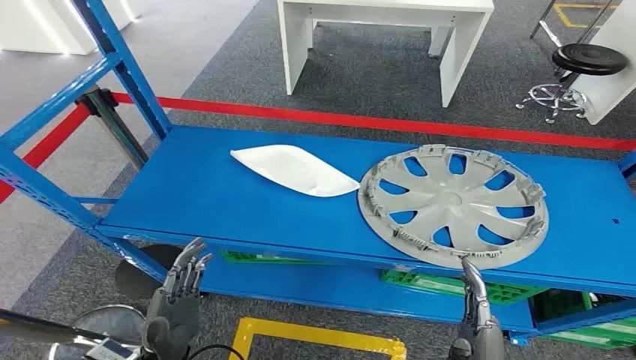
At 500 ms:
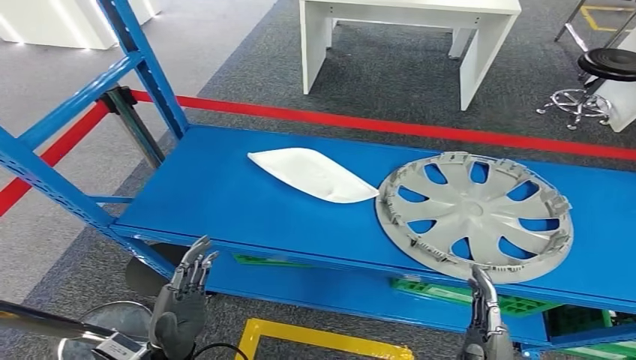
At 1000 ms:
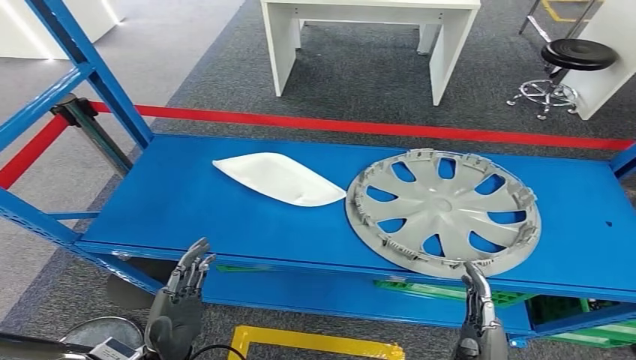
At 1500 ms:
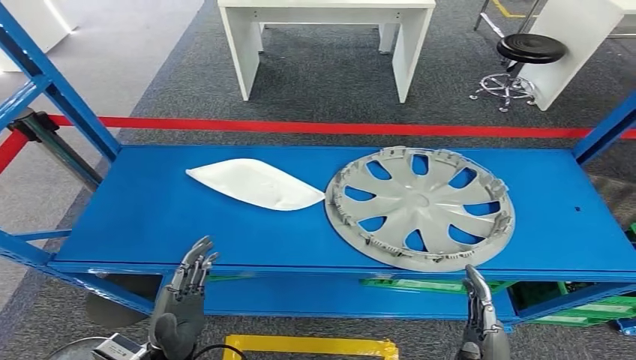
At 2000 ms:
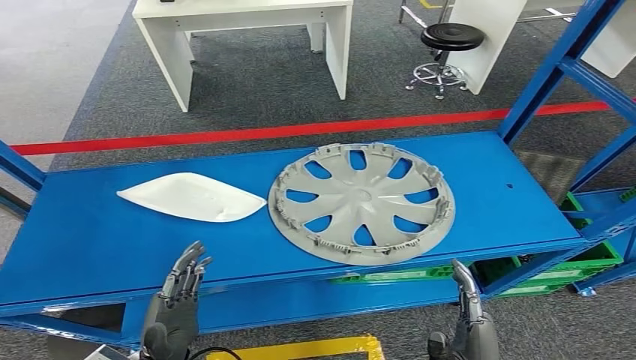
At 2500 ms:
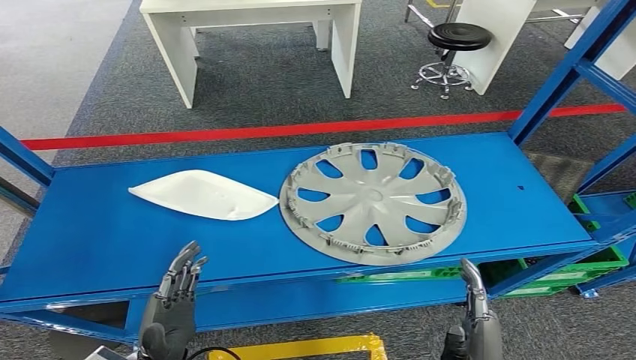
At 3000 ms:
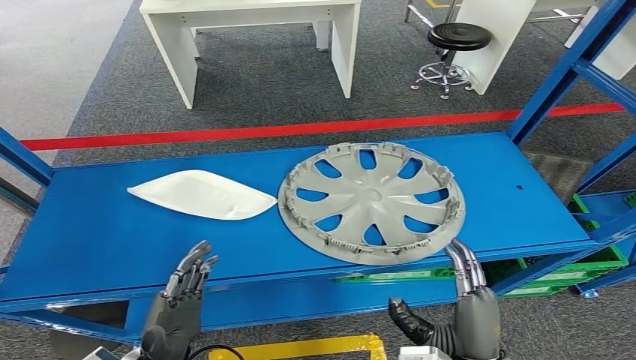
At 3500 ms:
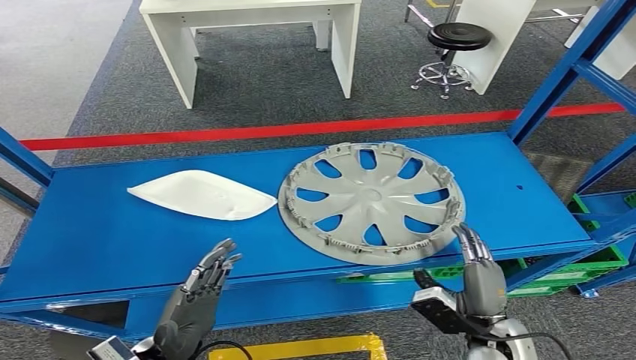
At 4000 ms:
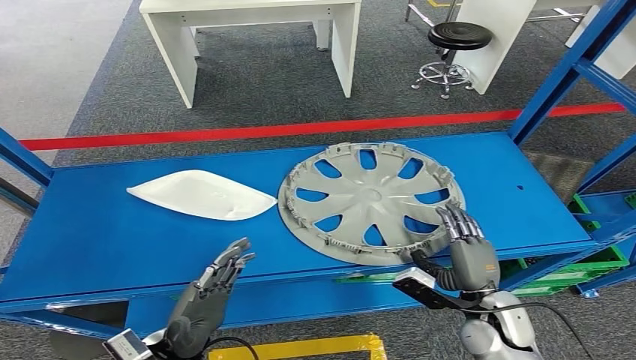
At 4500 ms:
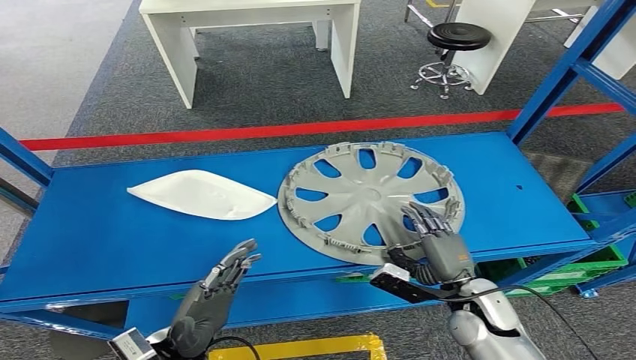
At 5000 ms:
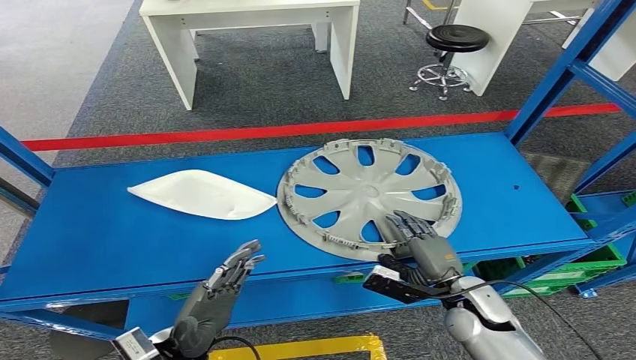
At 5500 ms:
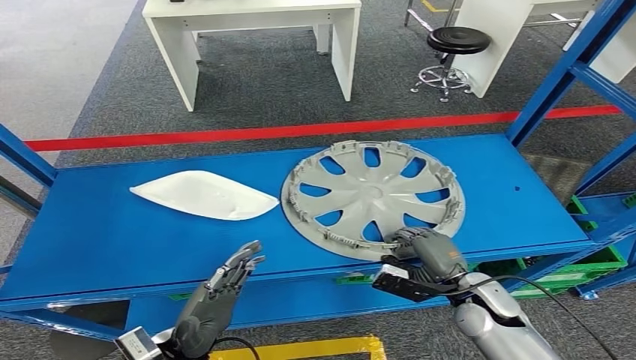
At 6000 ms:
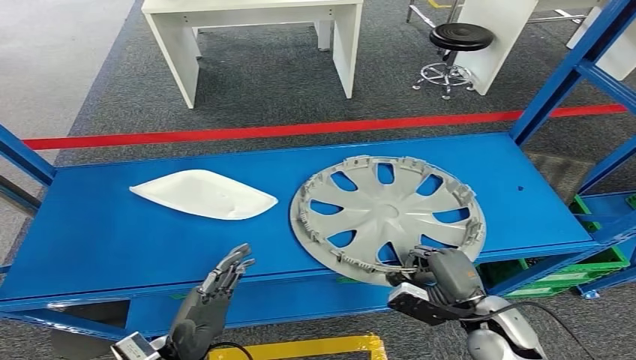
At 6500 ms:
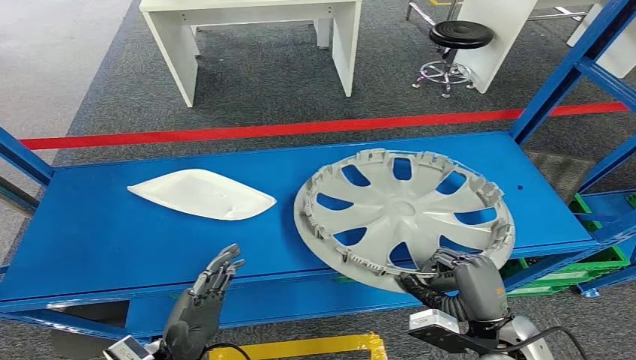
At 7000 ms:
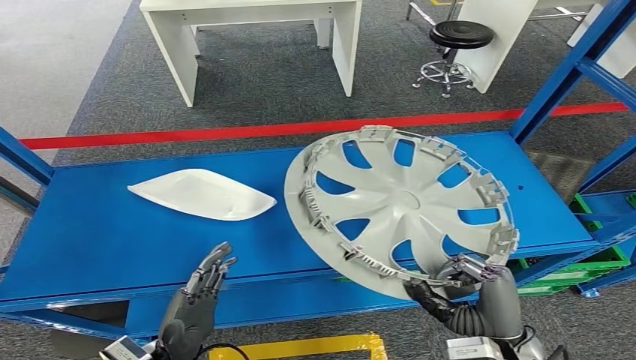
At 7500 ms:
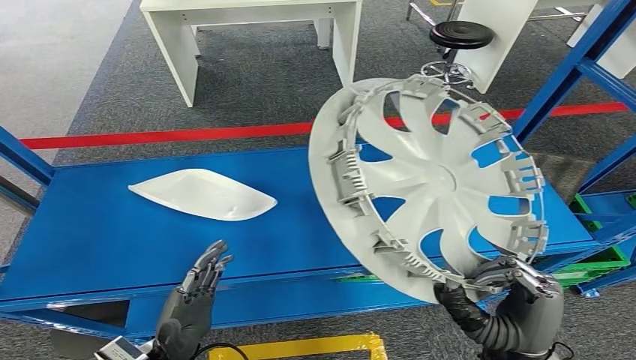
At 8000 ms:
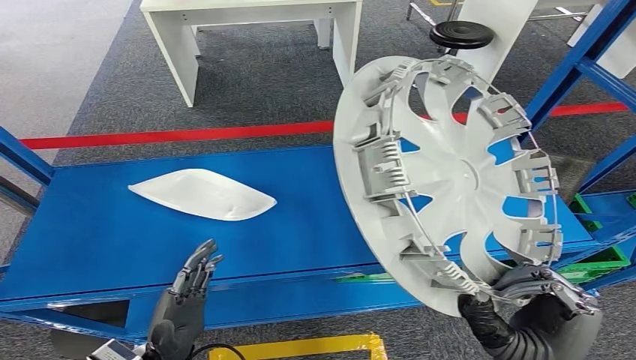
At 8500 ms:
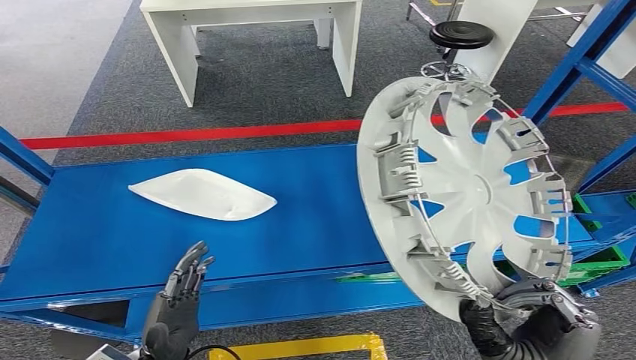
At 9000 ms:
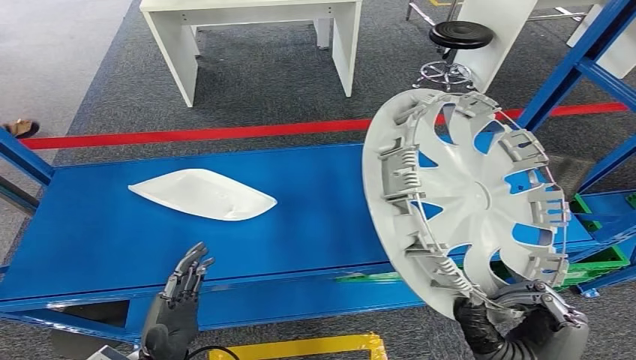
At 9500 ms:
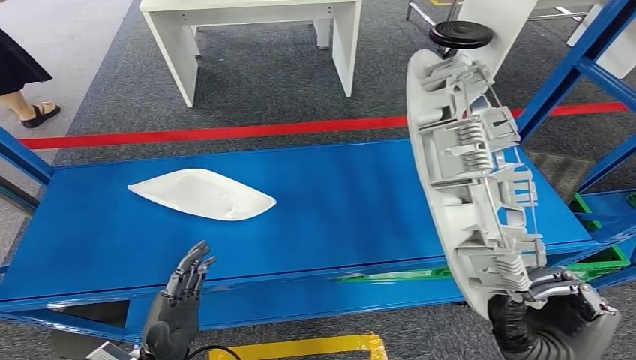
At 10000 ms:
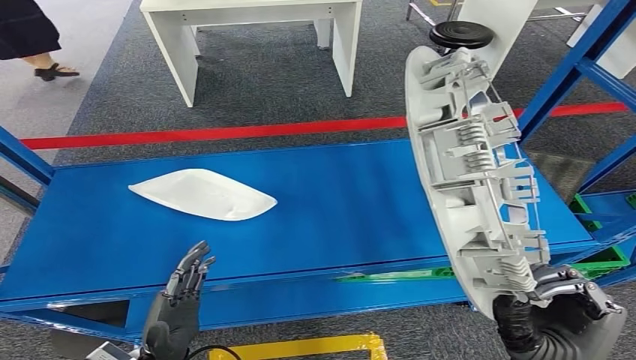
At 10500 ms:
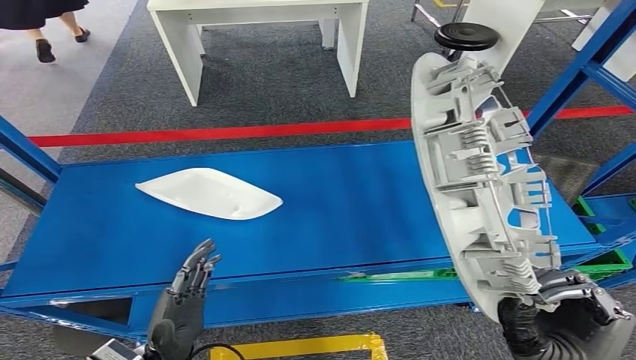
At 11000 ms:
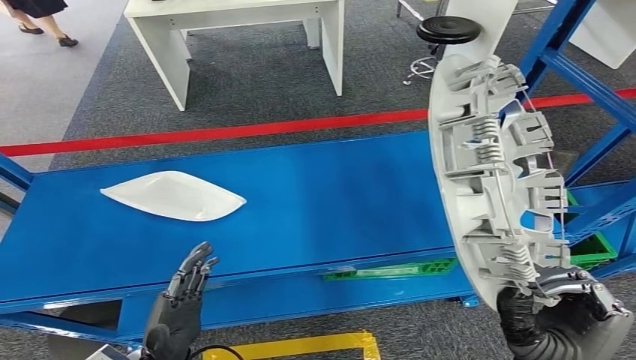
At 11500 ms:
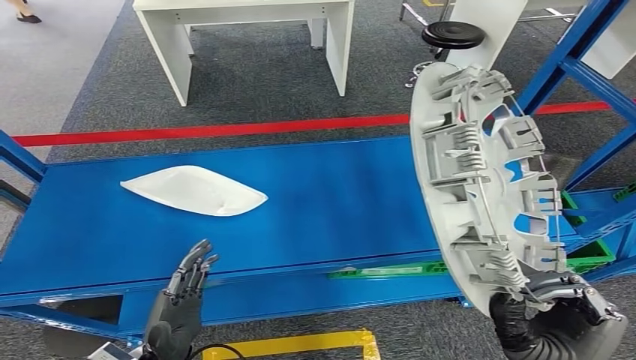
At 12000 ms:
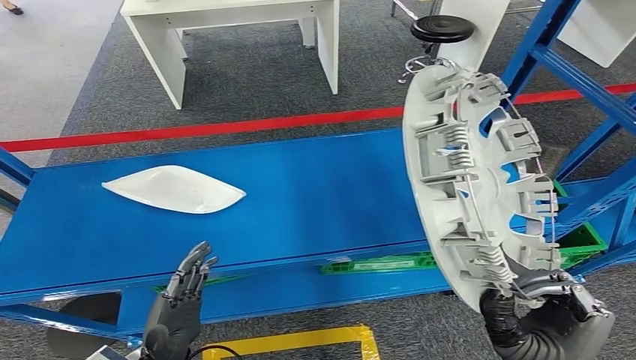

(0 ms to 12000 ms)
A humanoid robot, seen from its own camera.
Step, 0 ms - 7000 ms: Take small components from the rack.

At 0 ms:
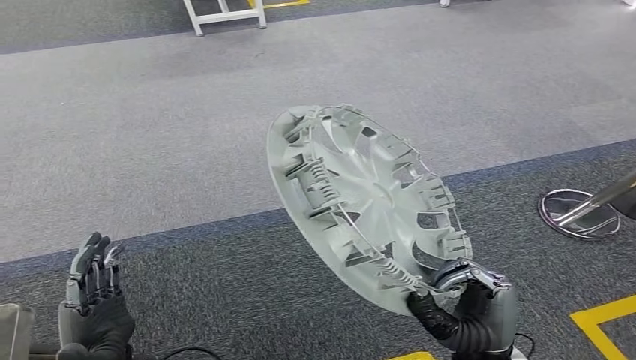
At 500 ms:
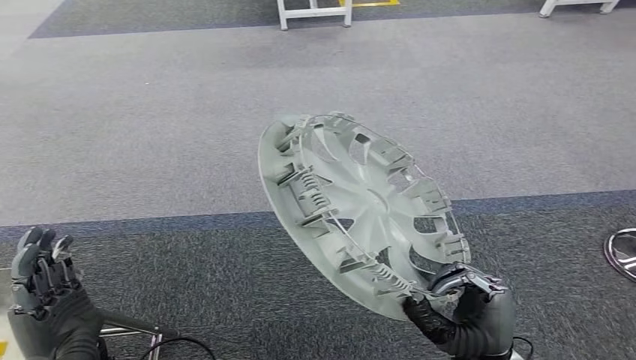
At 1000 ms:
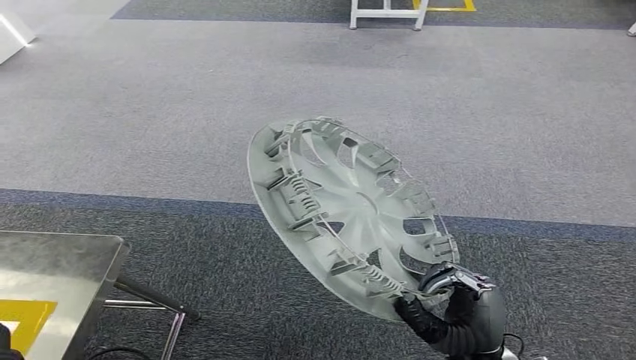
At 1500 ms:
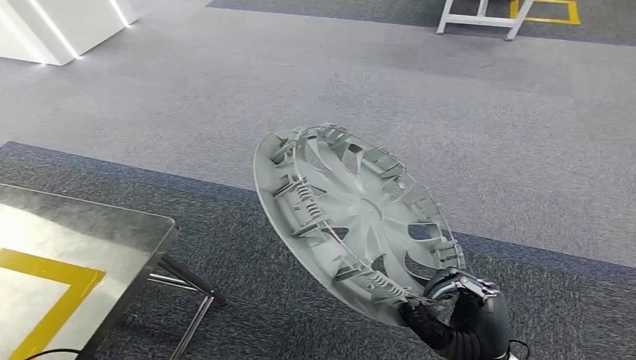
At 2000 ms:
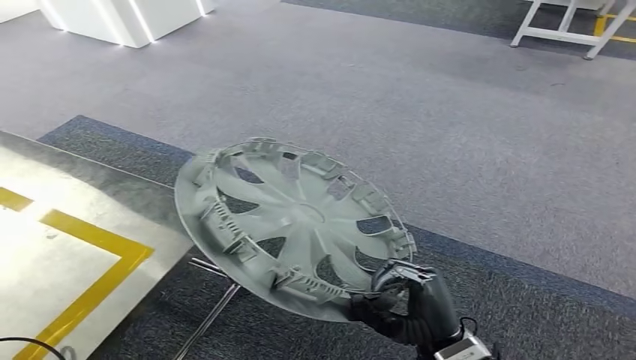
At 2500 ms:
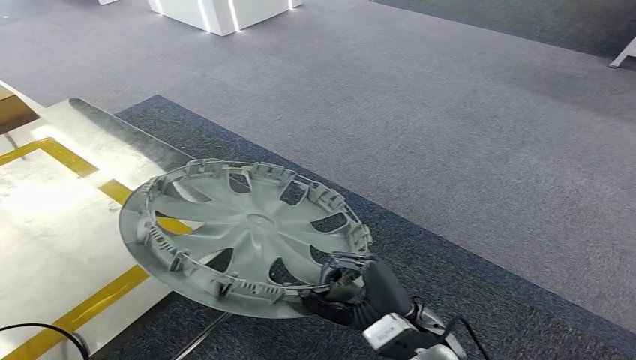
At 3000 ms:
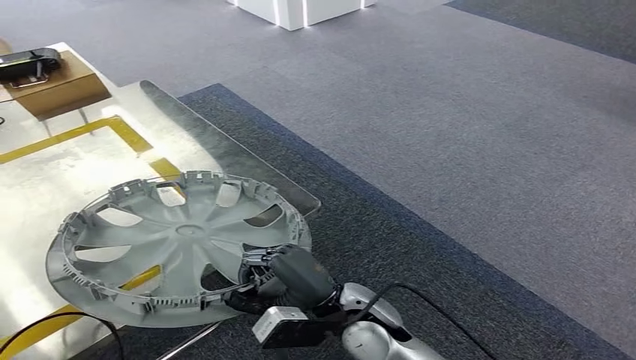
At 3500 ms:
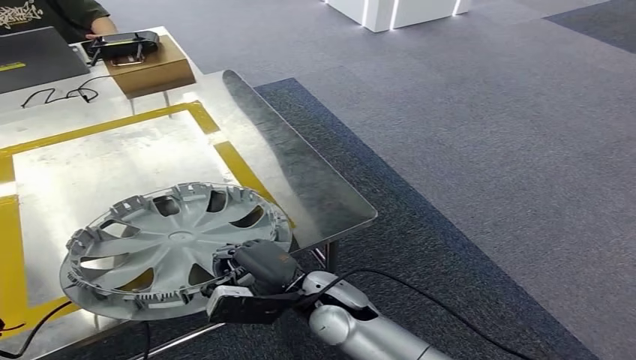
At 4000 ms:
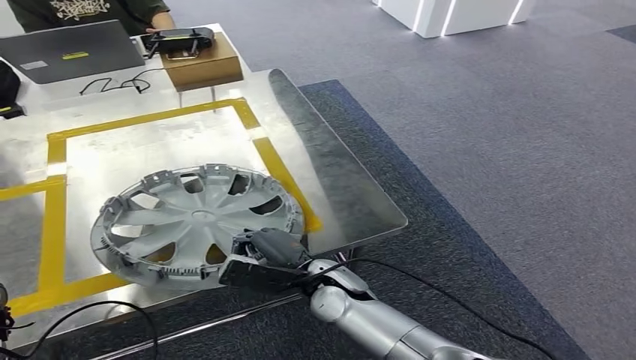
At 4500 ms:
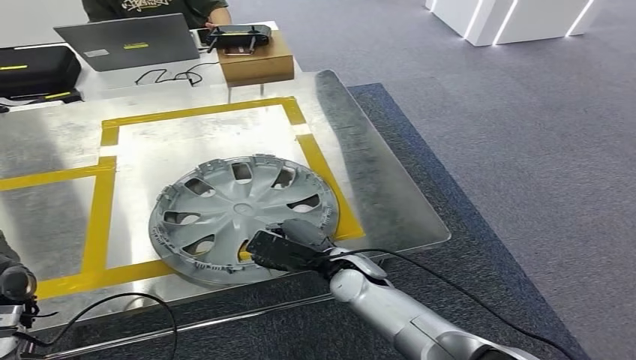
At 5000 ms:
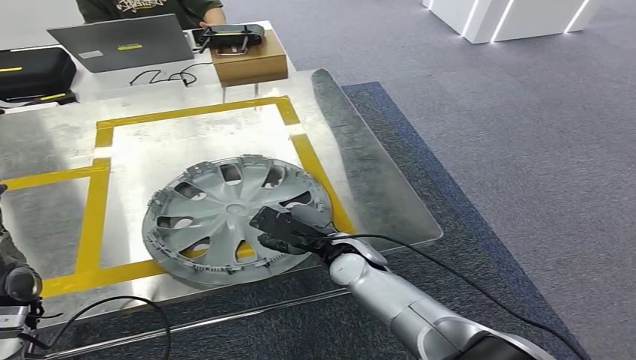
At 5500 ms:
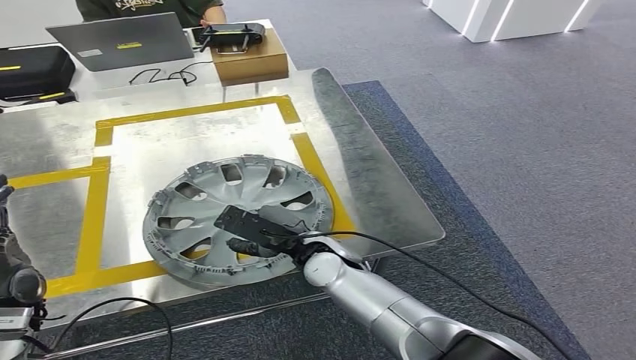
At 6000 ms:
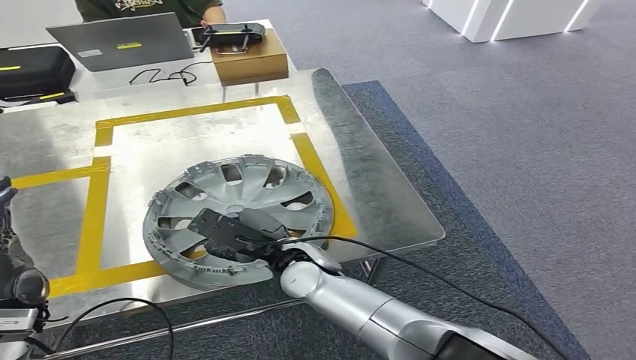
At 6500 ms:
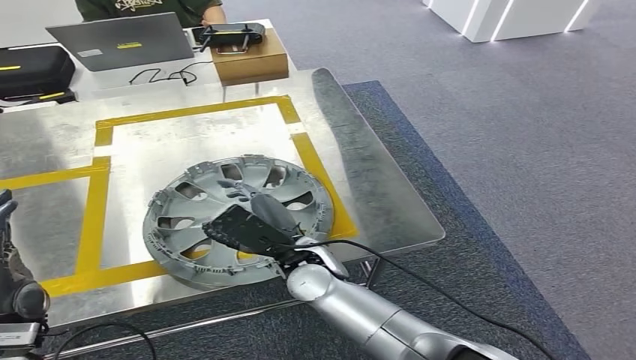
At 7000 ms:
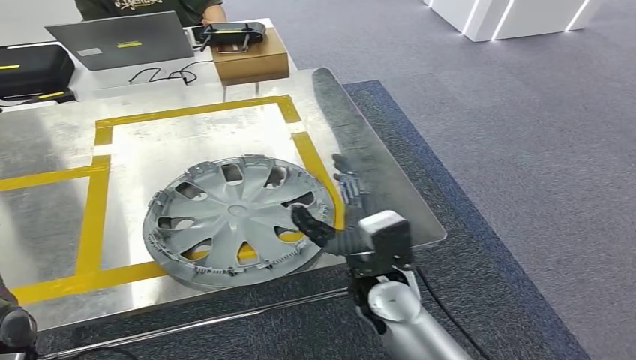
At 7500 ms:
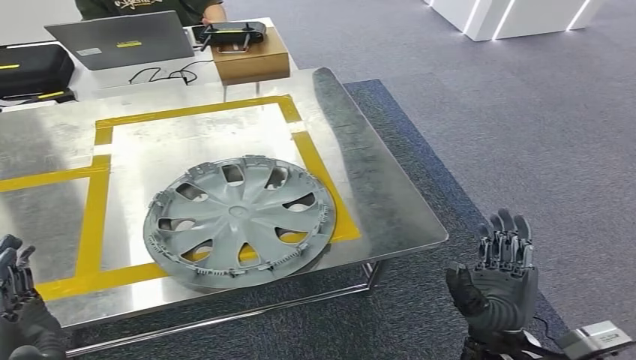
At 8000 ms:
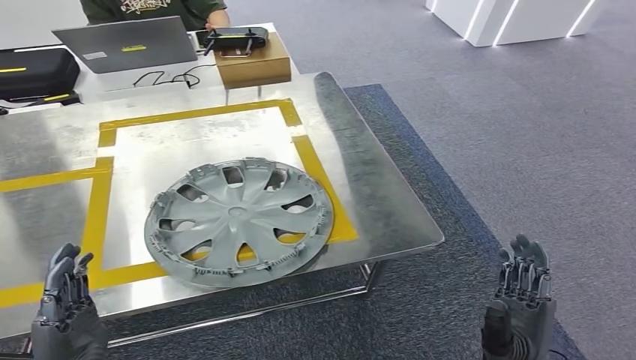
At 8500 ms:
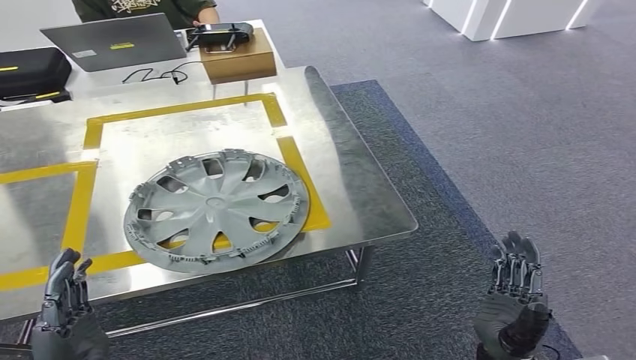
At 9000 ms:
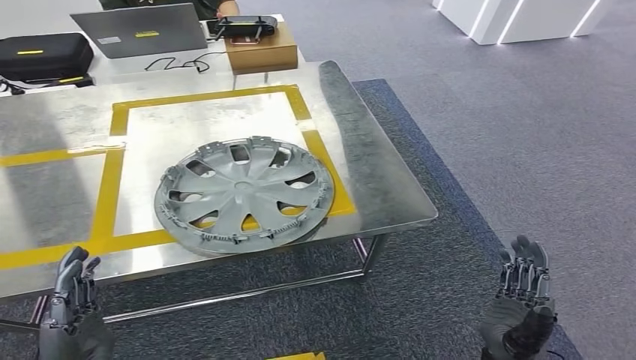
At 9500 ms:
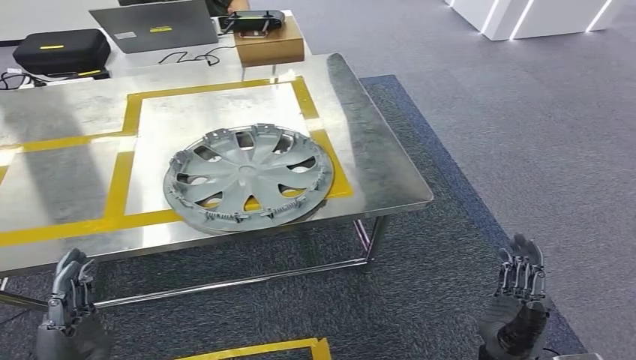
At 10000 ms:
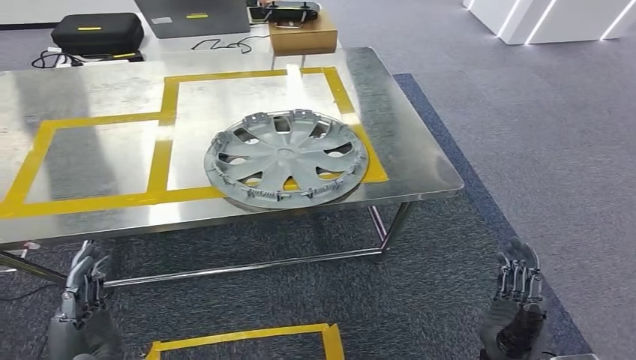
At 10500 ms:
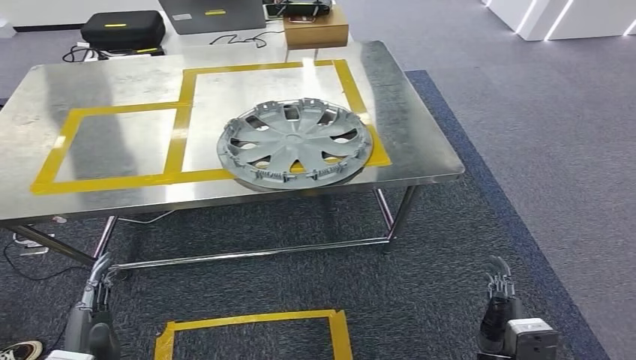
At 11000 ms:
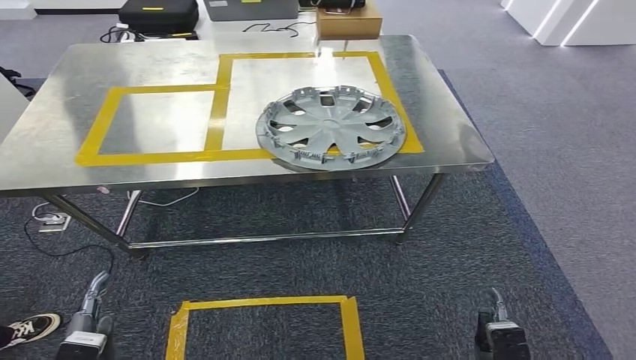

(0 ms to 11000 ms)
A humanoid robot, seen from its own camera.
Step, 0 ms - 2000 ms: Move the small parts to the workbench.
Step, 3000 ms - 7000 ms: Insert the small parts into the corresponding holes on the workbench.
5500 ms - 7500 ms: The right hand moves to the right and backward, roughly 25 cm. The left hand goes about 10 cm backward and to the right.
